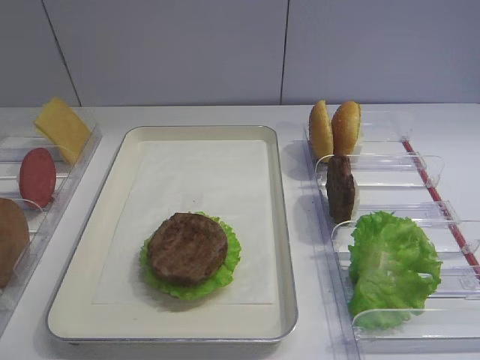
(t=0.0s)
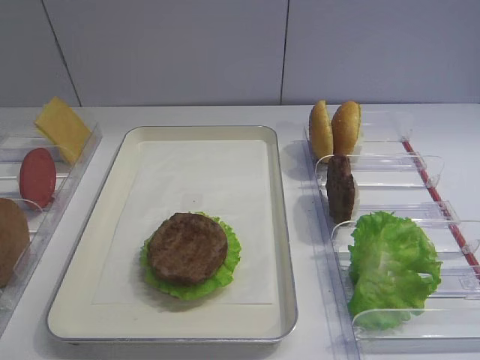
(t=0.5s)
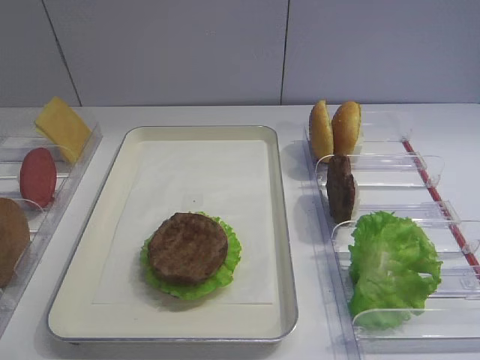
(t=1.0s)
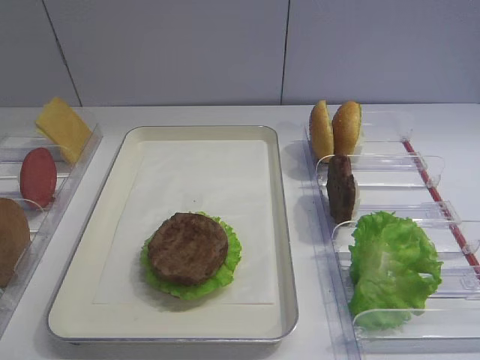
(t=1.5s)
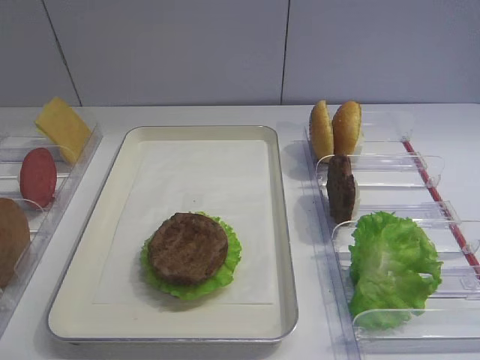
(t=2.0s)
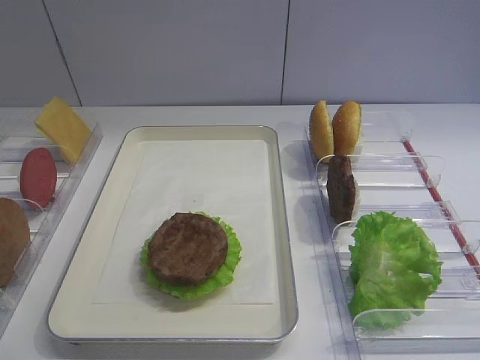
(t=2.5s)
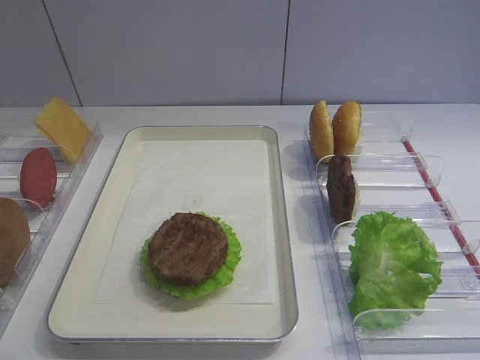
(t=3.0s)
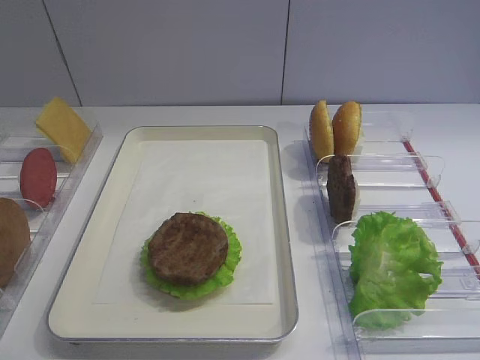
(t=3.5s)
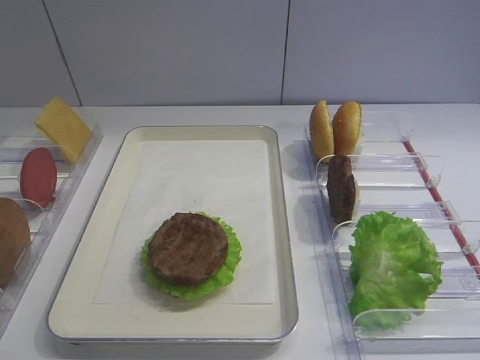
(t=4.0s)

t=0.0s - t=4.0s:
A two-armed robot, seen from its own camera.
t=2.0s - t=4.0s: The two grippers keep their place.

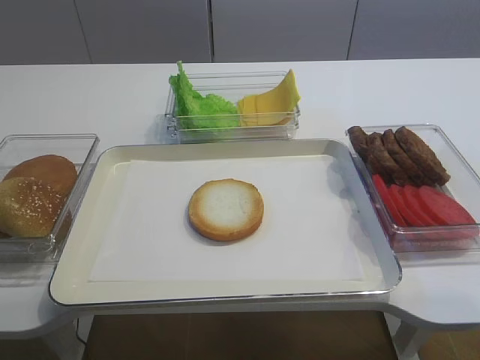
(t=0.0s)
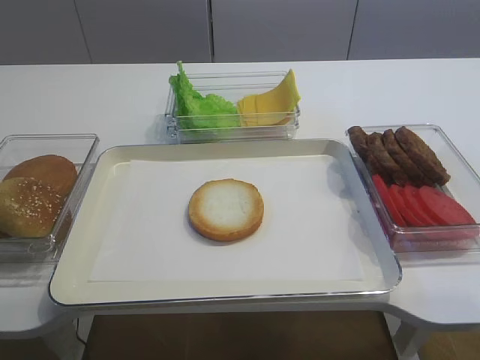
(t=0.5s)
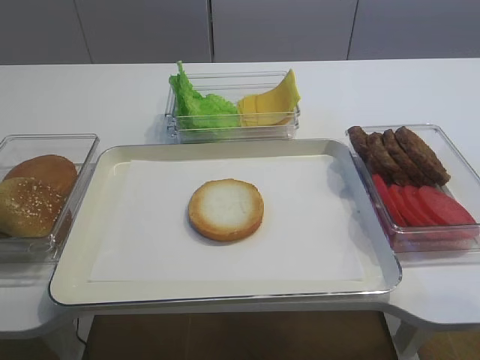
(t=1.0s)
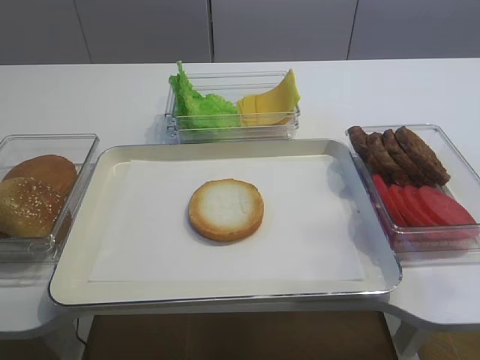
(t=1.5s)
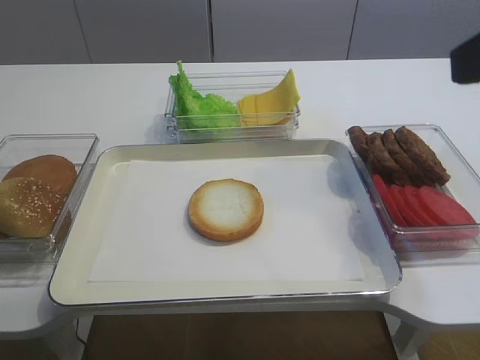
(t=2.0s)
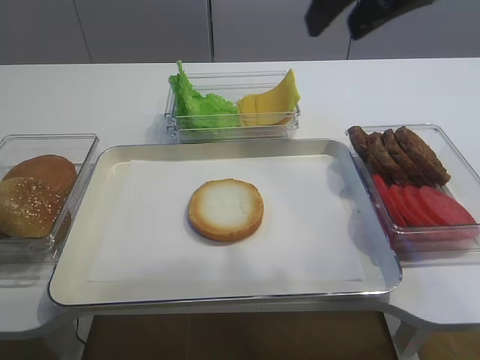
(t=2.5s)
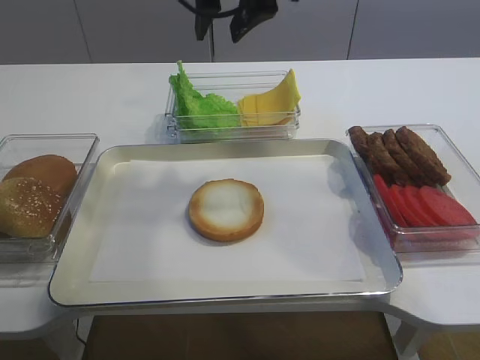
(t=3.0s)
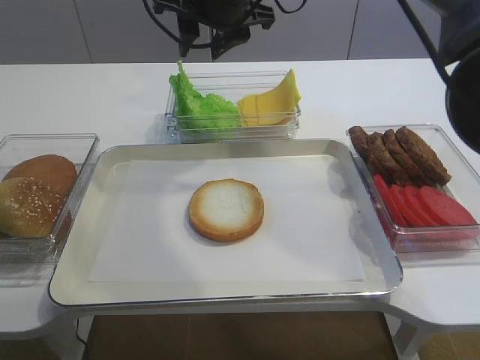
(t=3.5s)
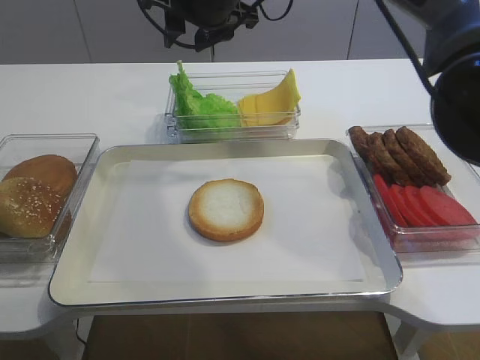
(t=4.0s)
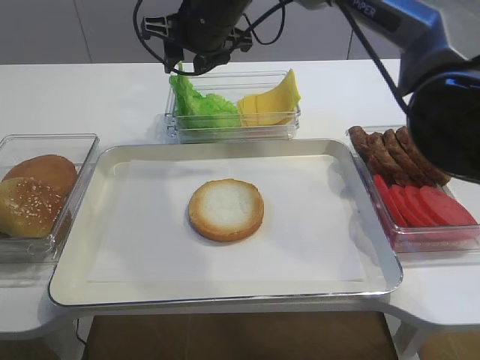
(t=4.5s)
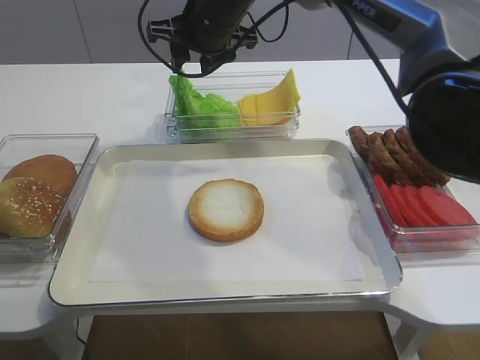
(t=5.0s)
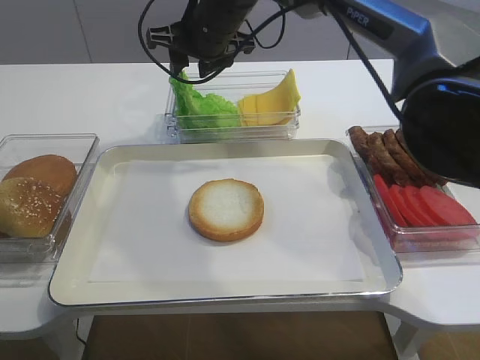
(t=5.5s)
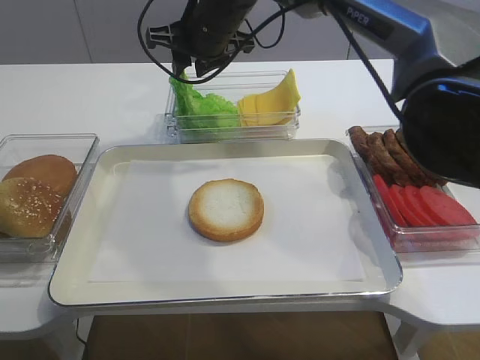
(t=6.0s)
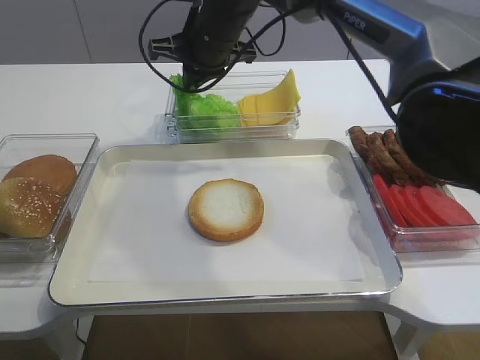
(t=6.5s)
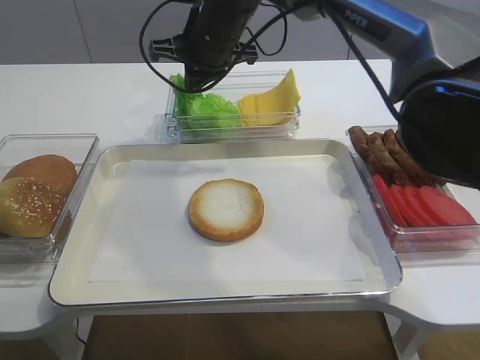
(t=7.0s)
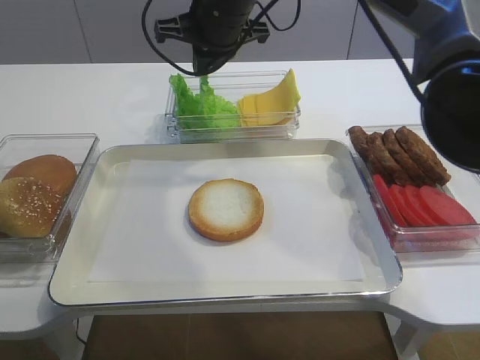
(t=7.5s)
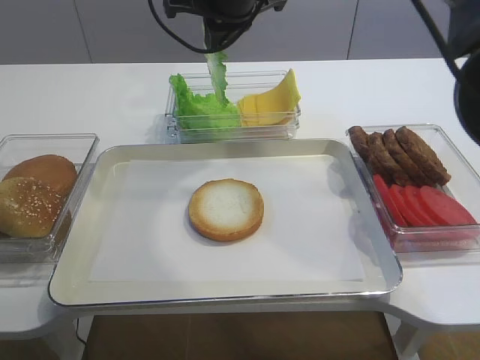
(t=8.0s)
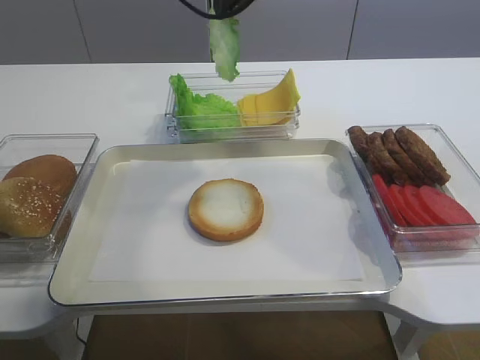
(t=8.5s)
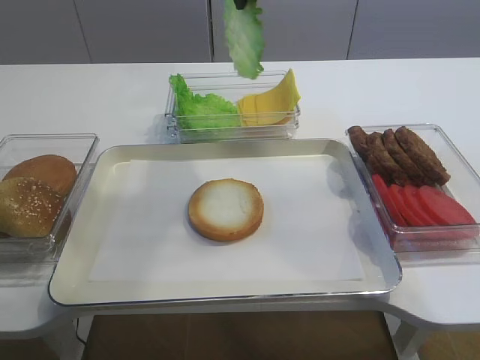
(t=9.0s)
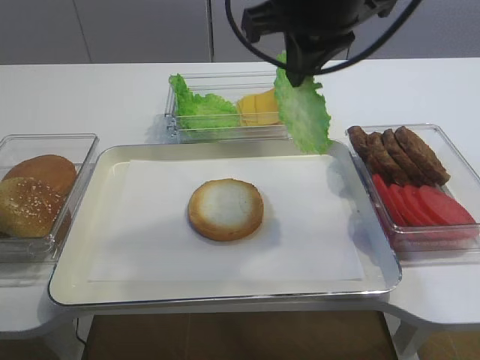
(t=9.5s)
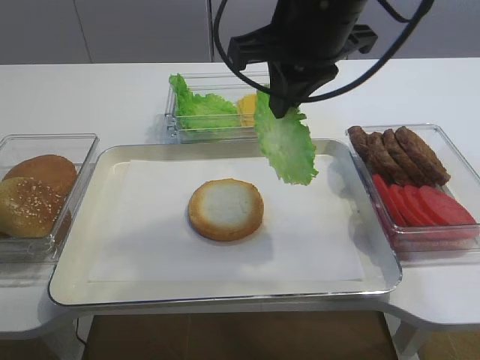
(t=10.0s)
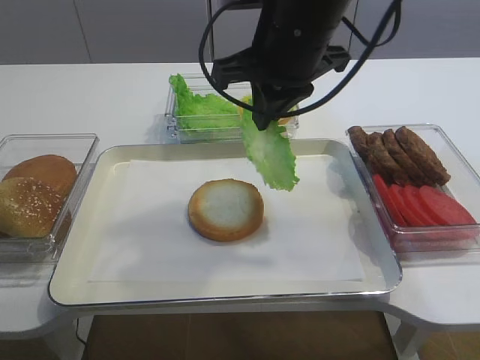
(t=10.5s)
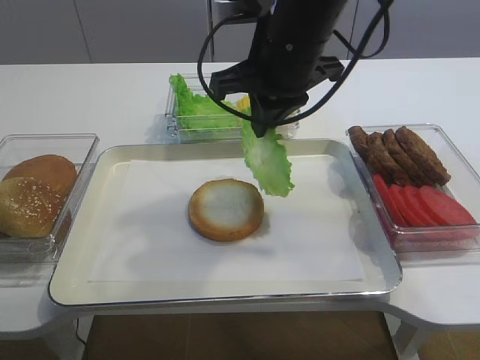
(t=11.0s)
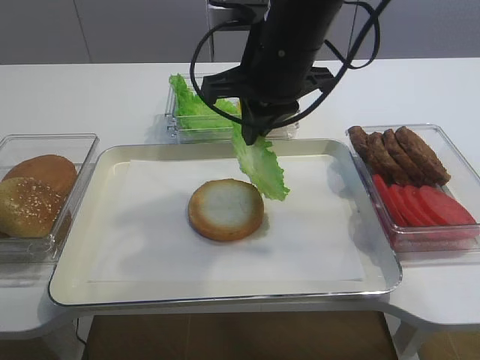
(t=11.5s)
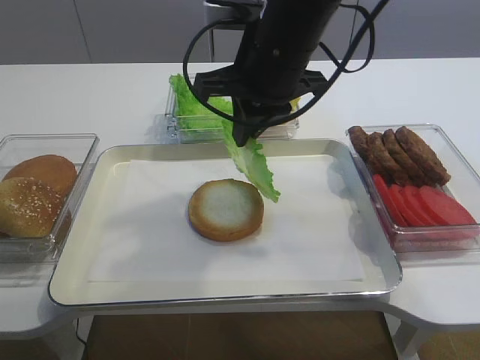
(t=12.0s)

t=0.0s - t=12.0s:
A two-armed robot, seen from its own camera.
Step, t=0.0s - t=7.0s: Pick up the lettuce leaf with the right gripper.
t=2.0s - t=4.0s: The right gripper heads forward and to the left, covering roughly 40 cm.
t=4.0s - t=6.0s: The grippers stay close to where they were, moving slightly.
t=6.0s - t=8.0s: The right gripper is displaced upward by approximately 5 cm, and closes up.
t=8.0s - t=10.0s: The right gripper heads backward and to the right, covering about 15 cm.
t=10.0s - t=12.0s: The right gripper moves roughly 5 cm.

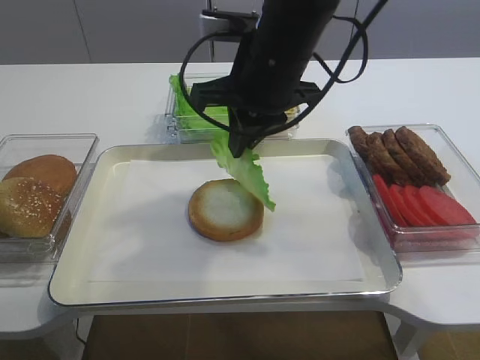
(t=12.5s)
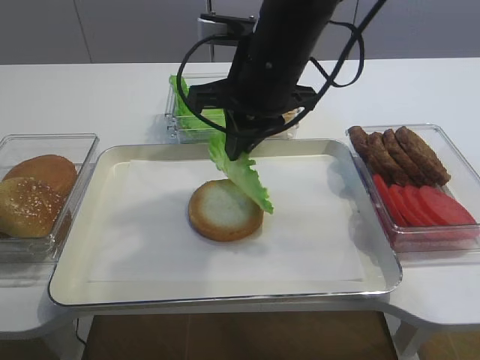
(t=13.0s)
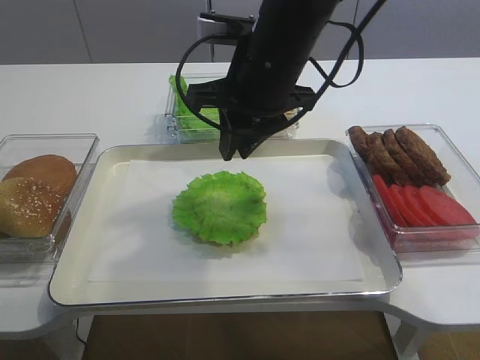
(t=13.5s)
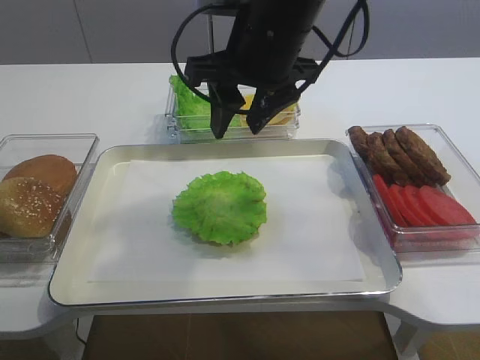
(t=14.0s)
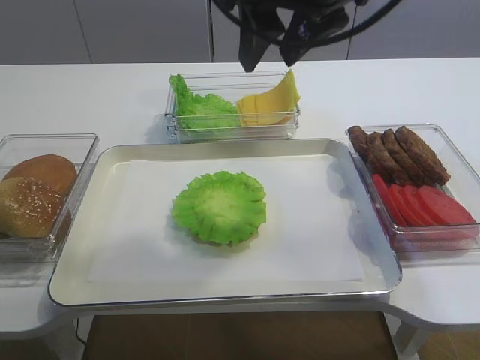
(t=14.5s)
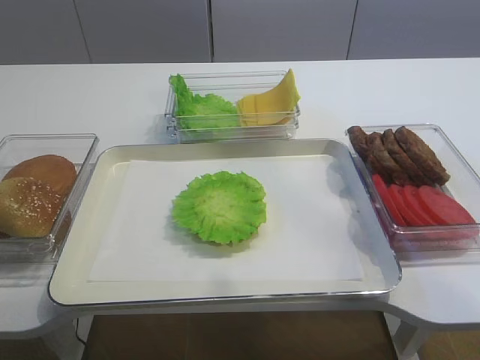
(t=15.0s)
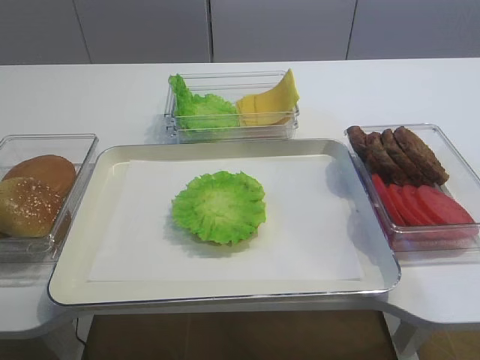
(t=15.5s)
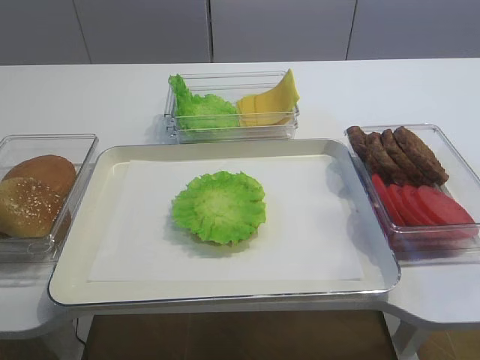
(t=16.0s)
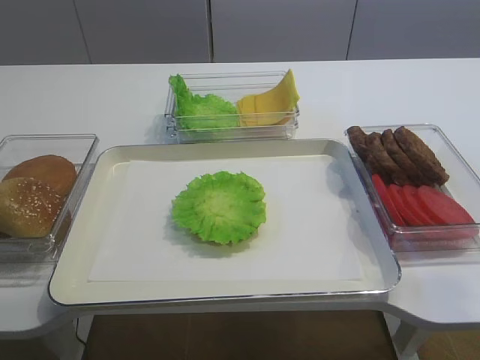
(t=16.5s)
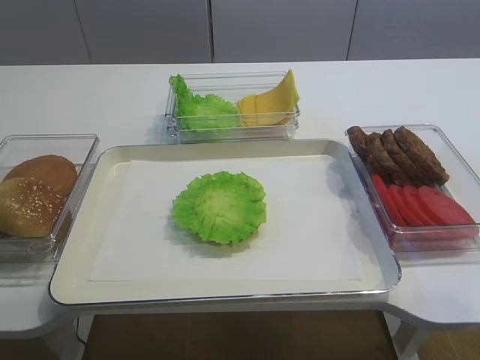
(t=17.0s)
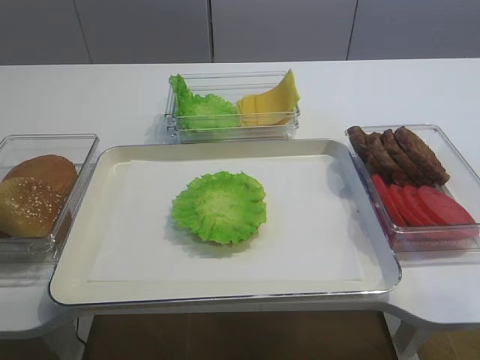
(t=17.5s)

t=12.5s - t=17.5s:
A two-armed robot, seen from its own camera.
t=12.5s - t=15.0s: The right gripper goes about 20 cm upward, backward and to the right, and opens.

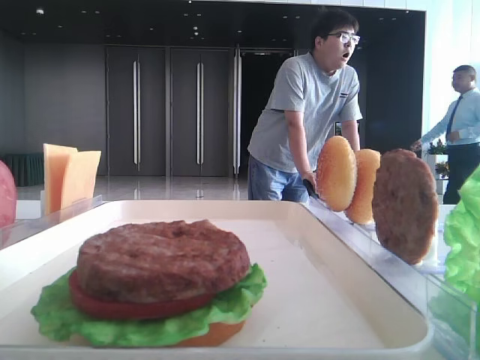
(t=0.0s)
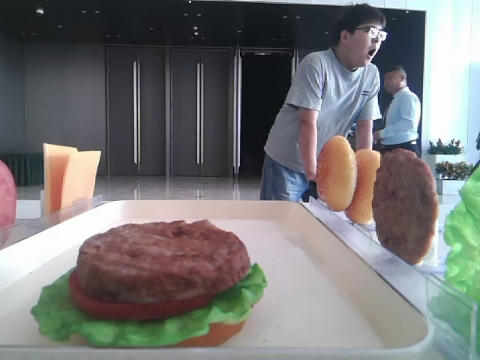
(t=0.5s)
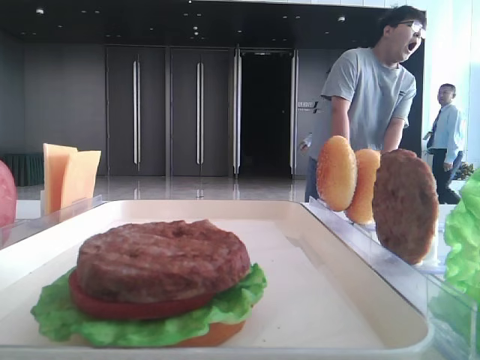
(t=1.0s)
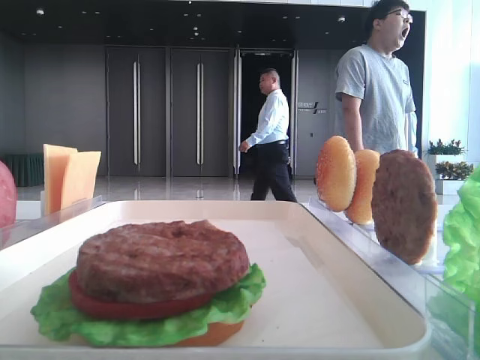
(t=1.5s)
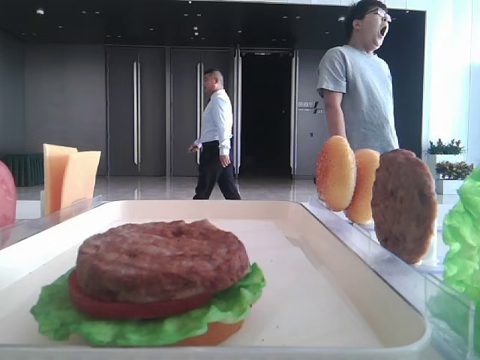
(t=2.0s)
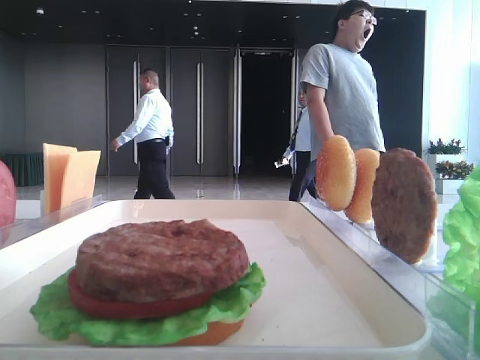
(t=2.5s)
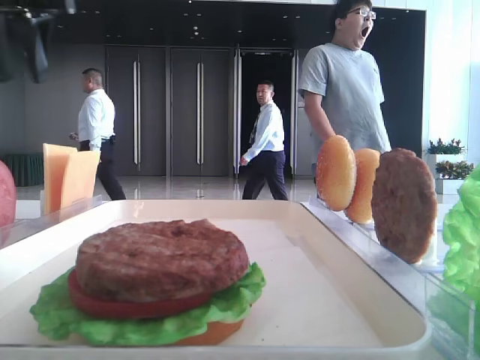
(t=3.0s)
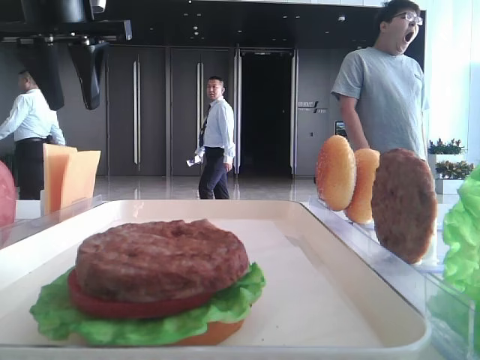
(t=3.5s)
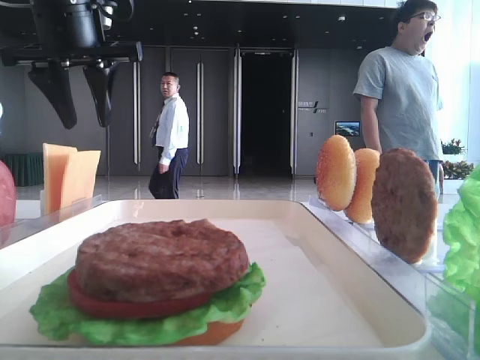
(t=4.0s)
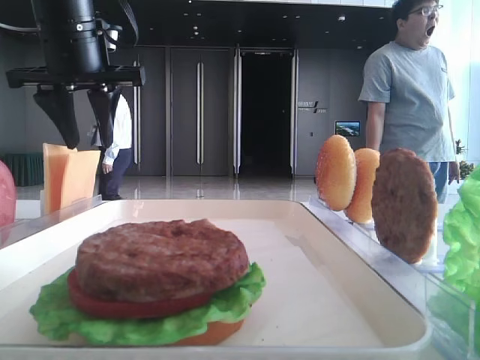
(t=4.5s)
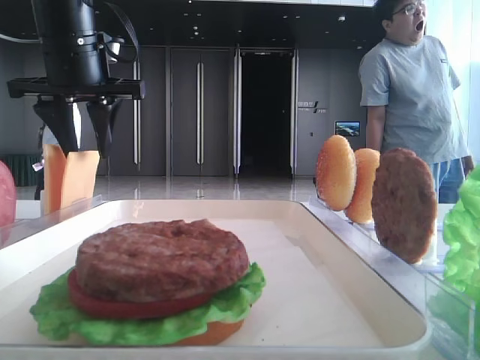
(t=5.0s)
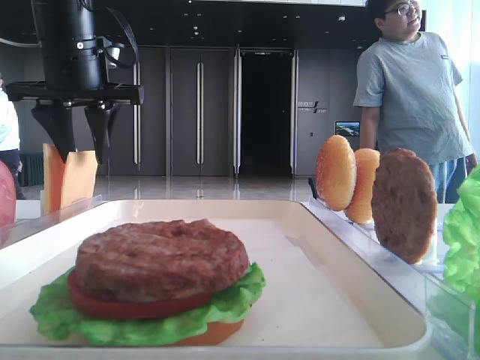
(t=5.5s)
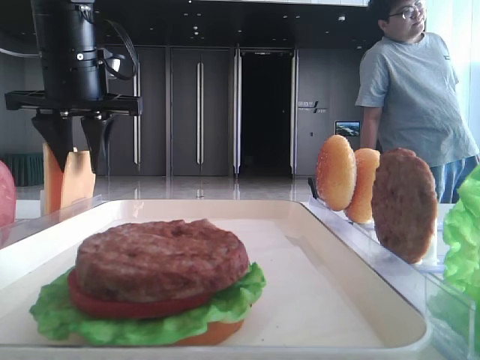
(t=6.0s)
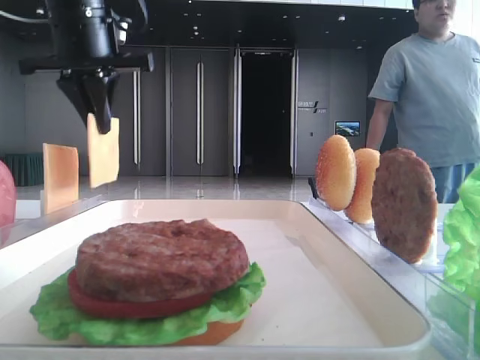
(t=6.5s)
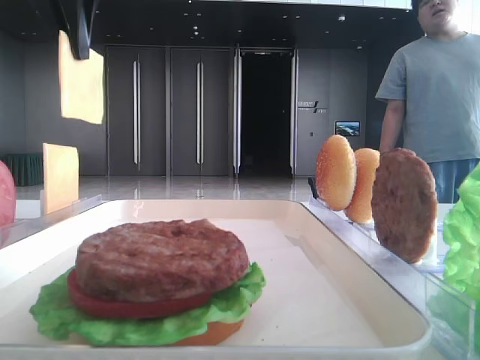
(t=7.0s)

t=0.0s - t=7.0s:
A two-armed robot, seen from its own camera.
Step, t=0.0s - t=6.0s: Pick up the cheese slice with the left hand.
t=2.0s - t=3.5s: The left gripper travels forward and to the right by roughly 20 cm.
t=3.5s - t=5.0s: The left gripper goes some 5 cm downward.
t=5.0s - t=7.0s: The left gripper shifts roughly 15 cm upward and backward, and closes up.
